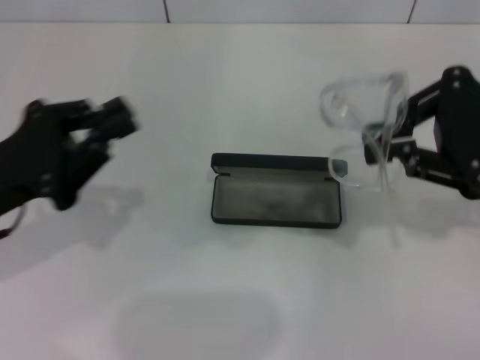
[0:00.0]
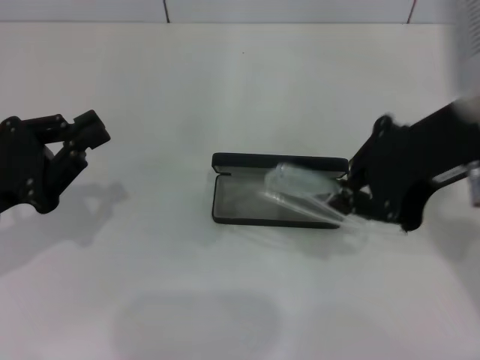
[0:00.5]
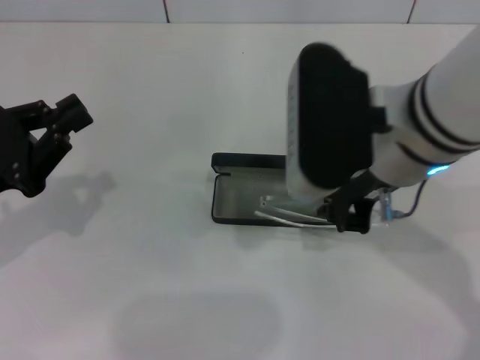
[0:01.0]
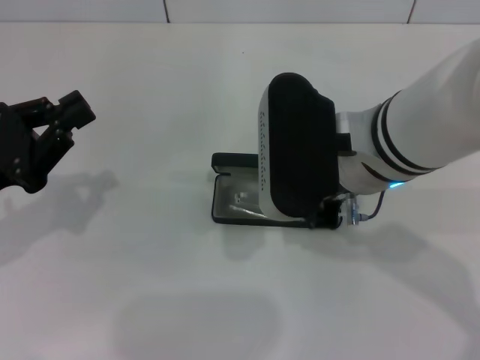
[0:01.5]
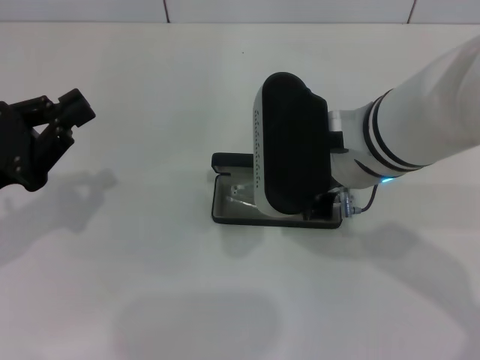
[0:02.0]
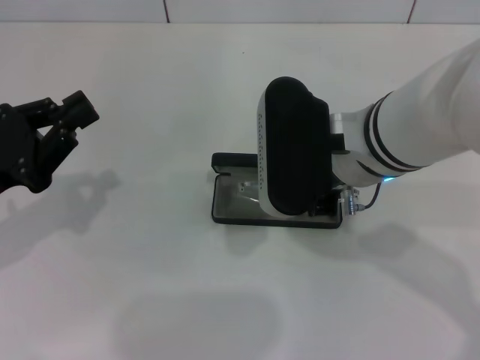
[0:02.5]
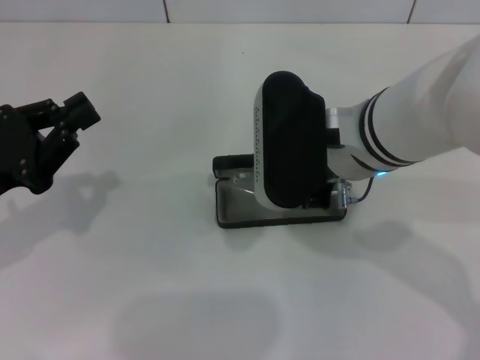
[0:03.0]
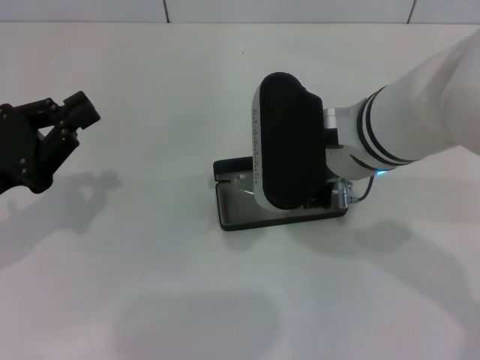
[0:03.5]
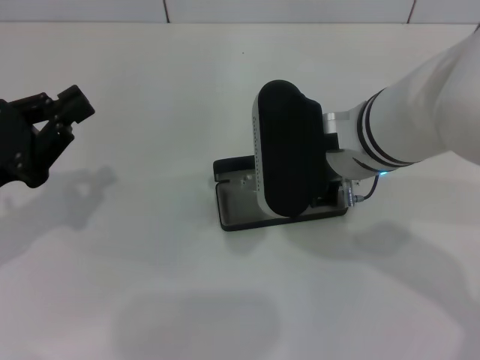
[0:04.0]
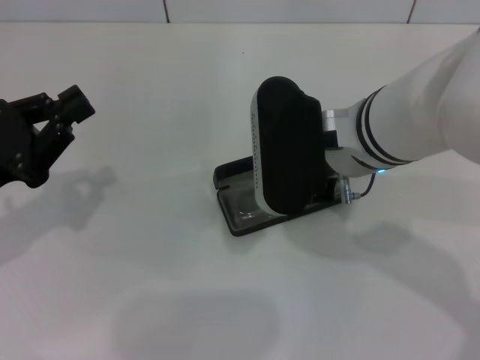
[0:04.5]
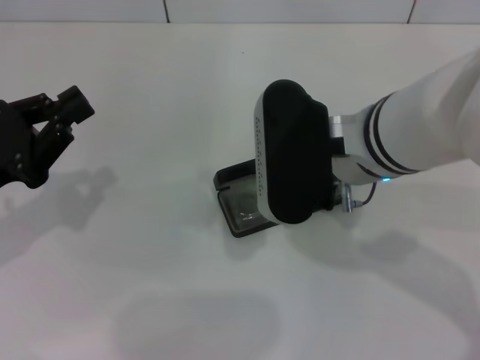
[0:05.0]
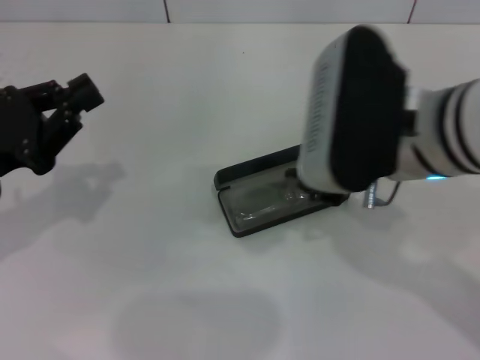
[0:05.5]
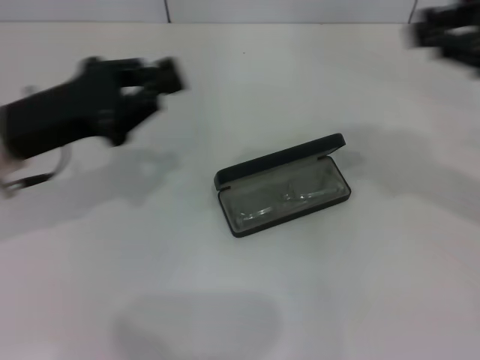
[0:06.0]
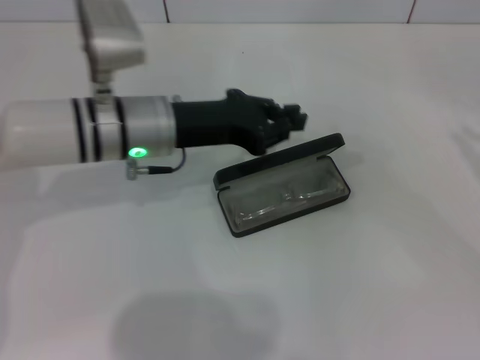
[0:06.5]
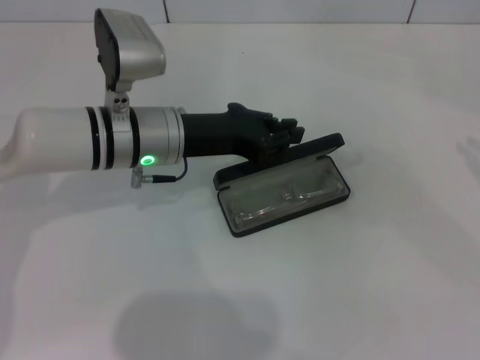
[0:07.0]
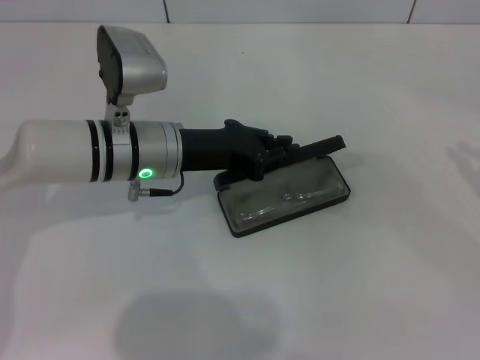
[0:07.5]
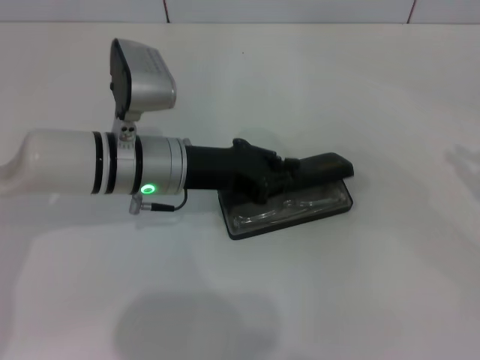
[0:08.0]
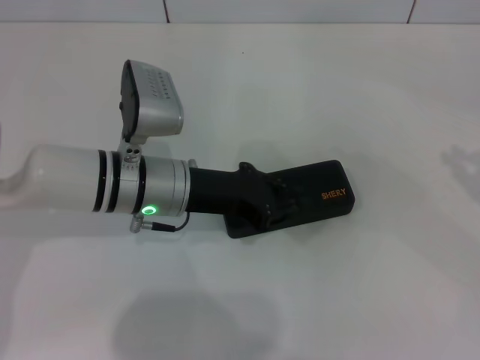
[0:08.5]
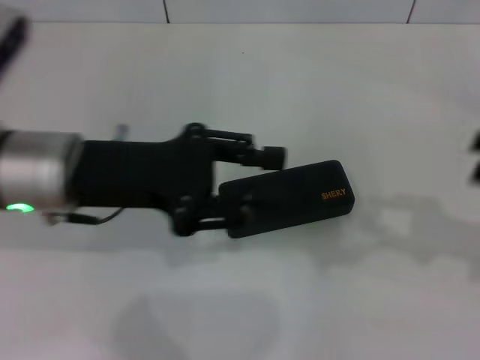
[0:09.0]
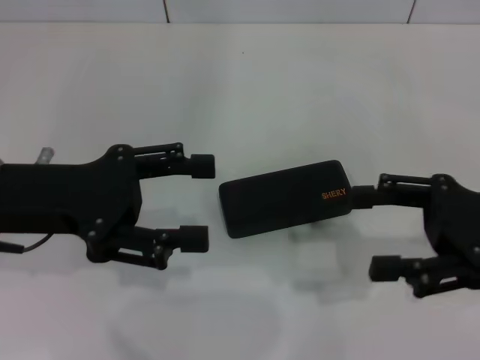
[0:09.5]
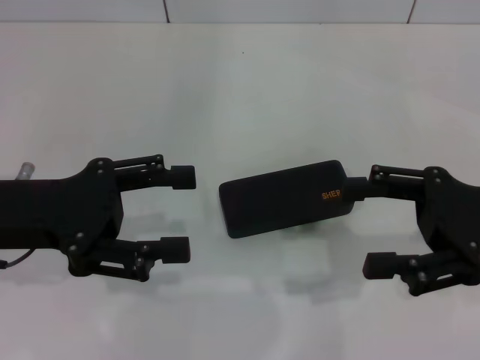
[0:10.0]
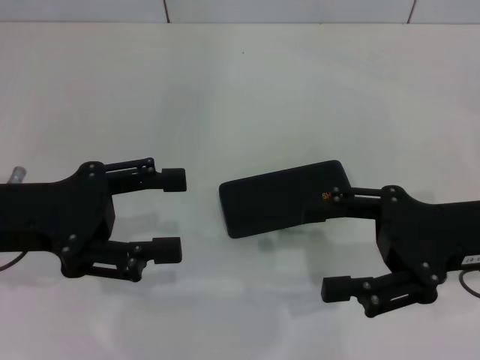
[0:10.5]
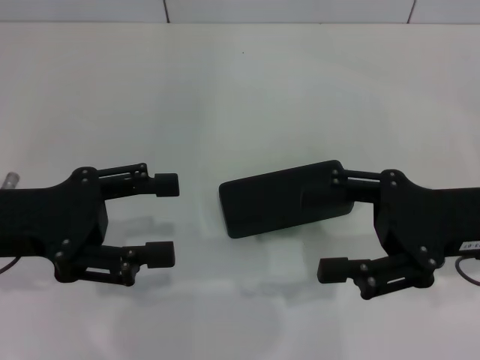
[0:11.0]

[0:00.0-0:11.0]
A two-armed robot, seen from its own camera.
Step, 0:00.0 to 0:04.0: Put the glasses into the case with your right hand.
Step, 0:05.0 to 0:08.0: Close the glasses case with your left hand.
0:00.0 to 0:02.0: The right gripper moves to the left, some 20 cm.
0:02.0 to 0:03.5: Both grippers stay about where they are.
0:03.5 to 0:05.5: The right gripper shifts by approximately 5 cm.
0:05.5 to 0:07.5: The right gripper travels to the right by about 30 cm. The left gripper heads to the right and forward, covering about 20 cm.
0:07.5 to 0:09.0: The right gripper heads to the left, covering some 5 cm. Meanwhile the left gripper goes approximately 10 cm upward, backward and to the left.
0:09.0 to 0:11.0: The left gripper heads to the left, covering about 10 cm, and opens its fingers. The right gripper heads to the left, covering approximately 10 cm, and opens up.
